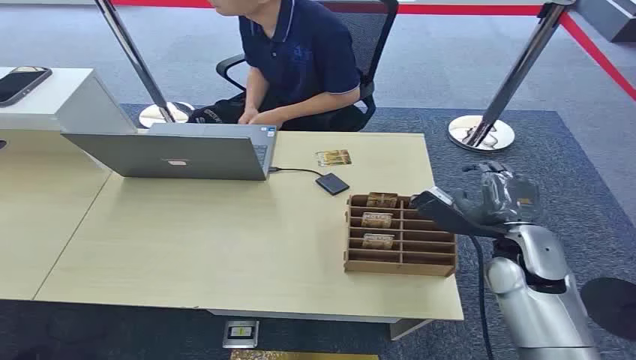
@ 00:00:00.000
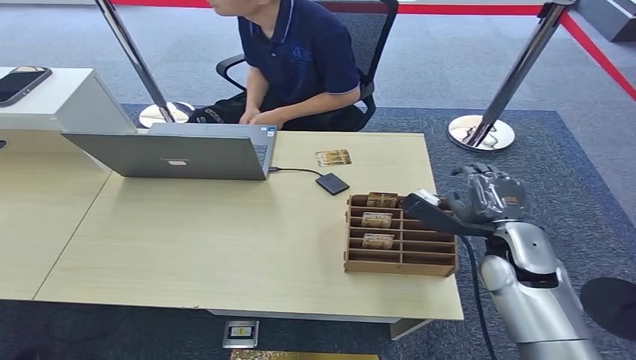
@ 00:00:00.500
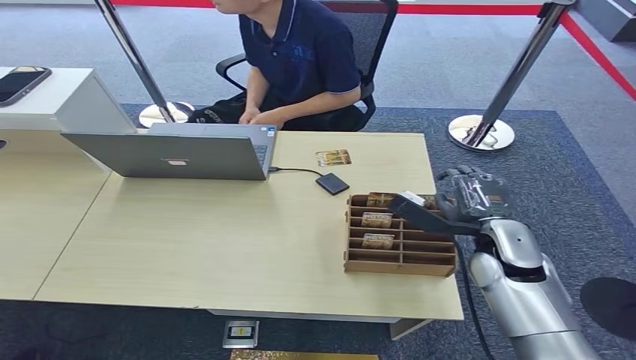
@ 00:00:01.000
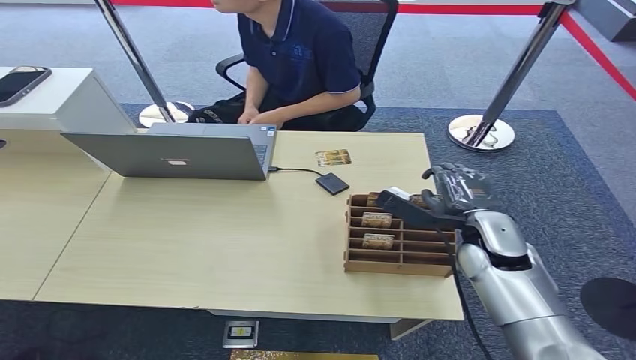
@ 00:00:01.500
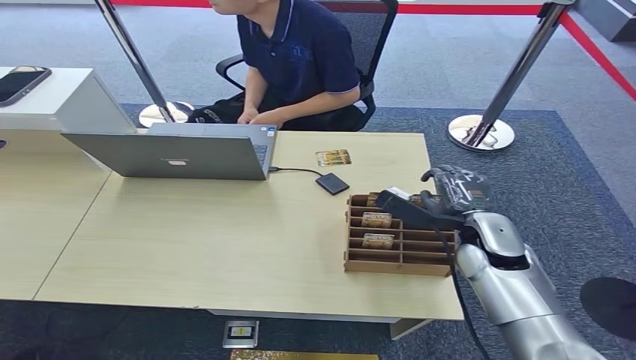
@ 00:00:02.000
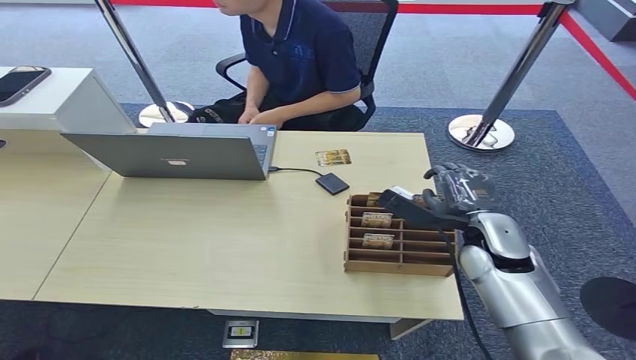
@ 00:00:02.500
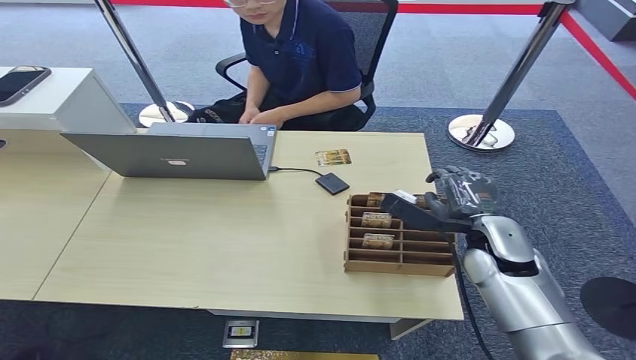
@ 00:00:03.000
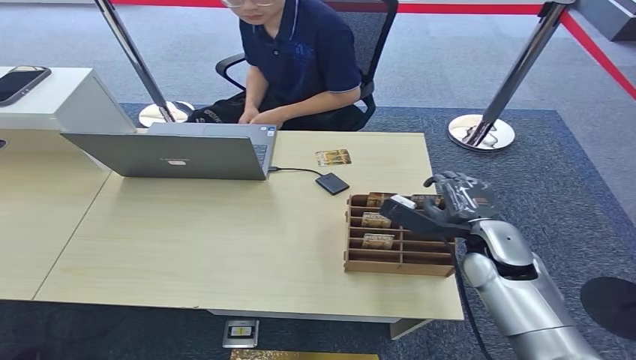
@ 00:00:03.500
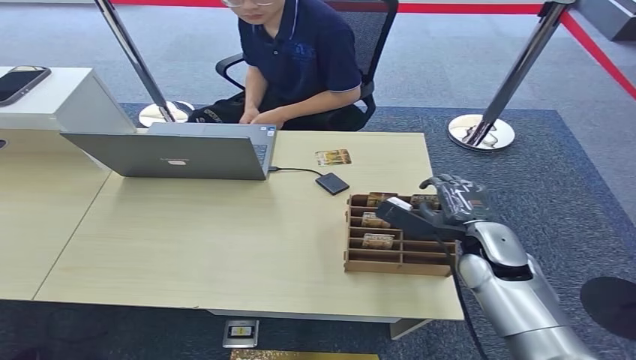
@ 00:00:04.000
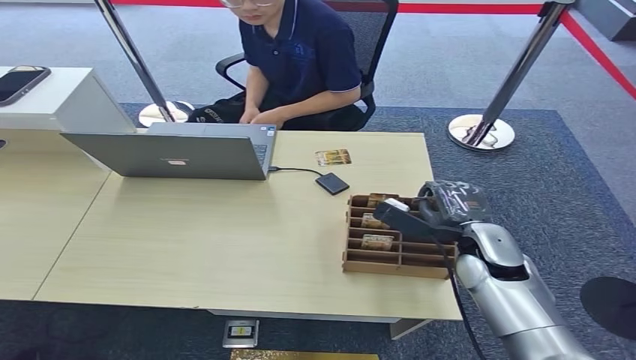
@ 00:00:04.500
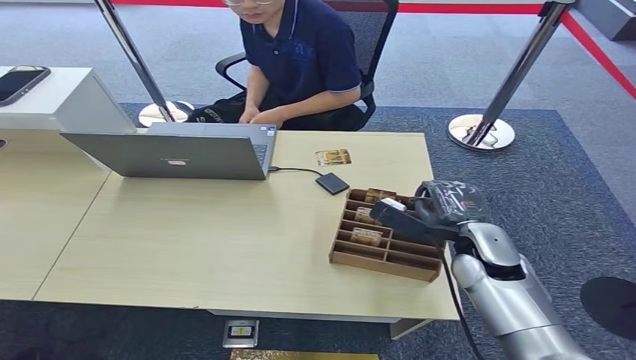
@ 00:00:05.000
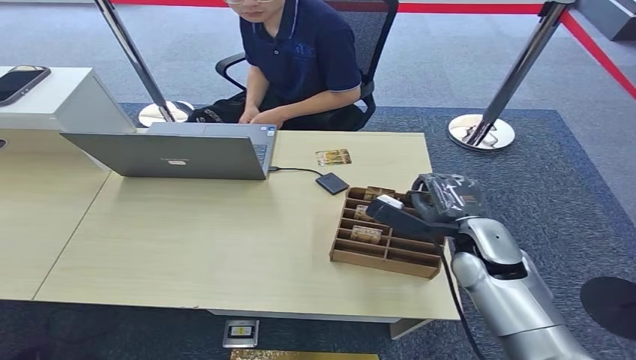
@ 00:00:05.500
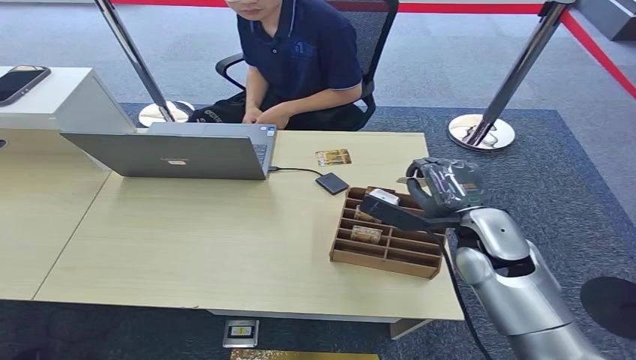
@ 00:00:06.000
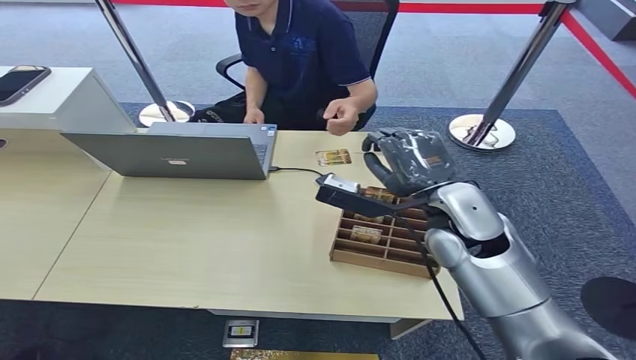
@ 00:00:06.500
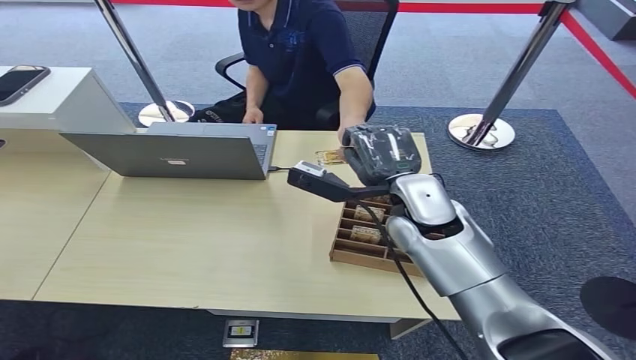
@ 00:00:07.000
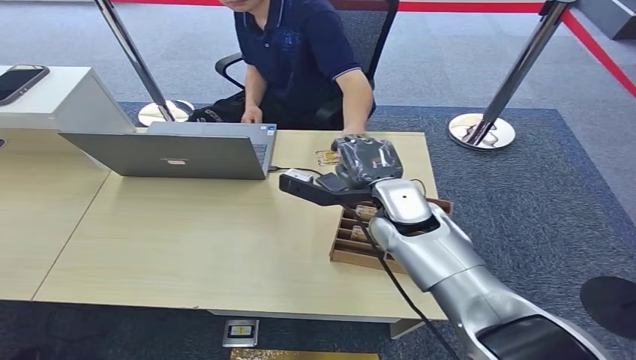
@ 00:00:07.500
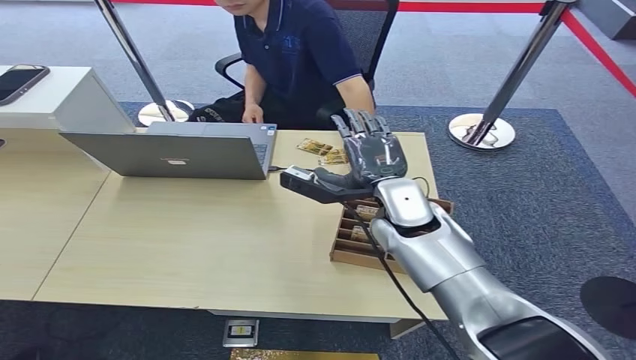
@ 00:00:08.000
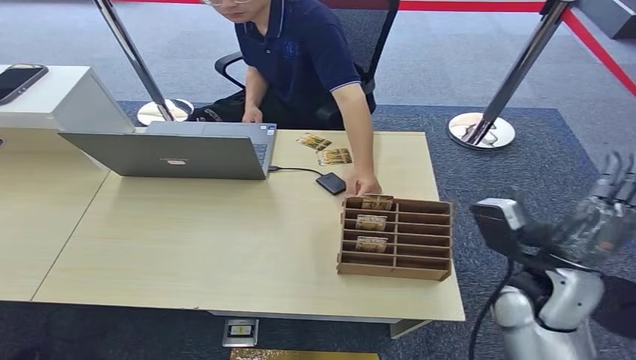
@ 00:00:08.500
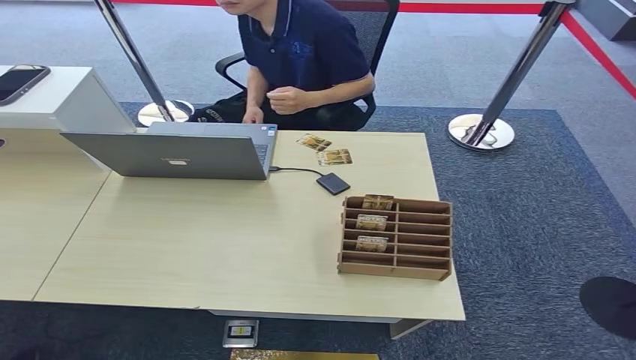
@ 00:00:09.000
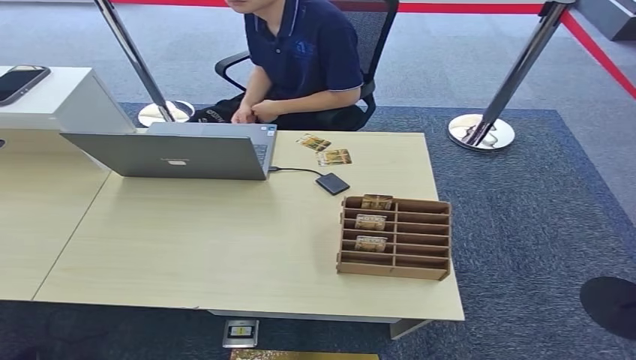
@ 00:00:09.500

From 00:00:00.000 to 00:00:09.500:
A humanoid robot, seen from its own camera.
Step, from 00:00:00.000 to 00:00:06.000: Pick up the room card from the card holder.
Step, from 00:00:06.500 to 00:00:09.500: Hand the room card to the target.
From 00:00:02.000 to 00:00:05.500: The hands stay close to where they were, moving slightly.
From 00:00:05.500 to 00:00:07.500: The right hand moves to the left, forward and upward, some 15 cm.
From 00:00:07.500 to 00:00:09.500: The right hand goes some 50 cm backward, downward and to the right.
